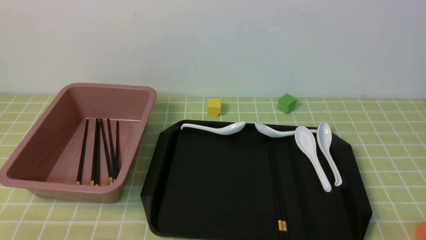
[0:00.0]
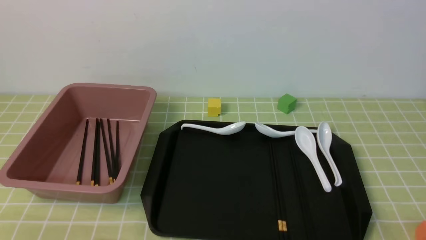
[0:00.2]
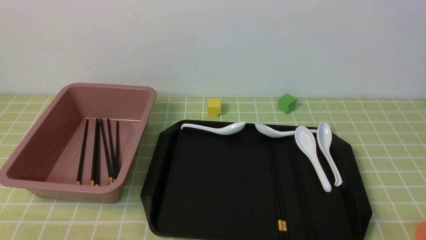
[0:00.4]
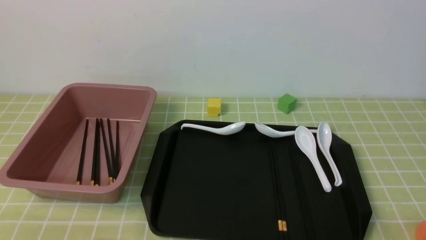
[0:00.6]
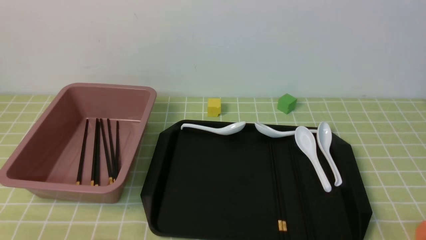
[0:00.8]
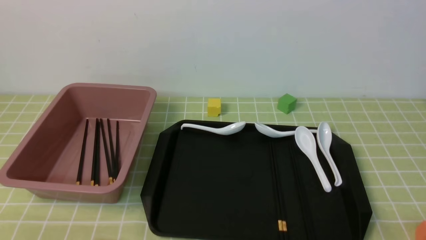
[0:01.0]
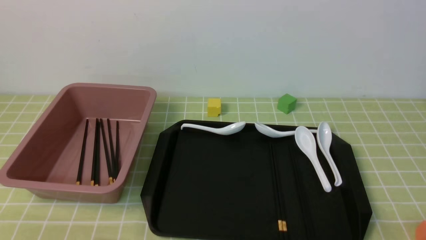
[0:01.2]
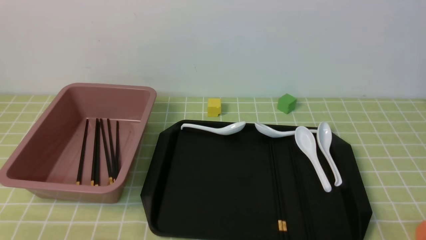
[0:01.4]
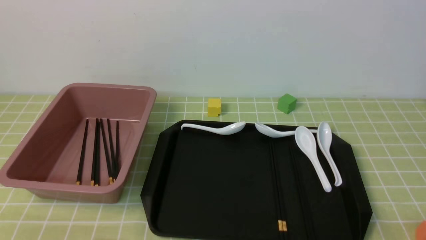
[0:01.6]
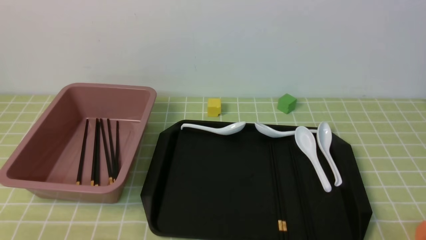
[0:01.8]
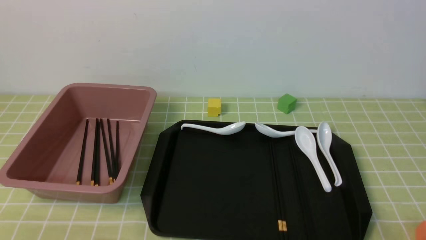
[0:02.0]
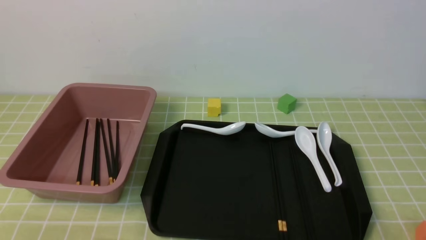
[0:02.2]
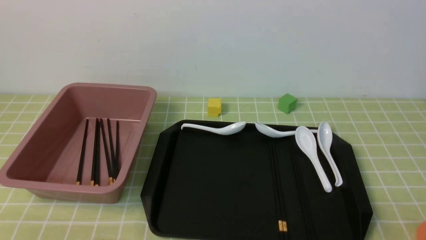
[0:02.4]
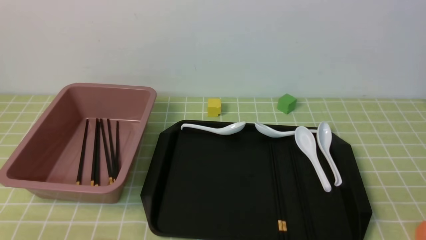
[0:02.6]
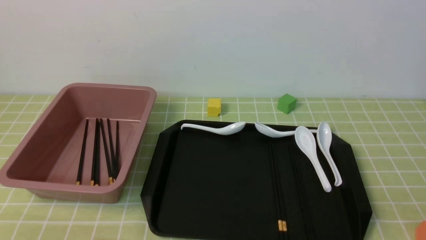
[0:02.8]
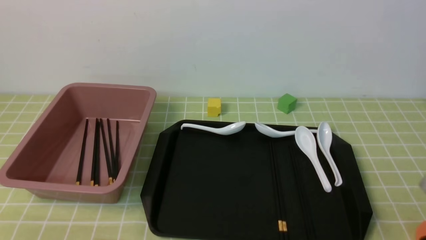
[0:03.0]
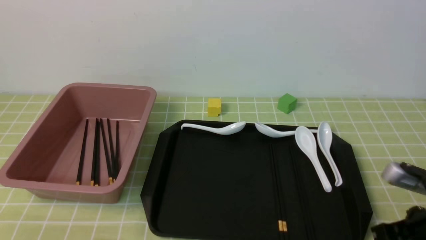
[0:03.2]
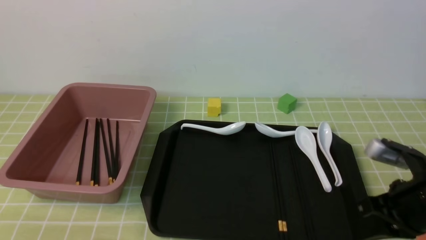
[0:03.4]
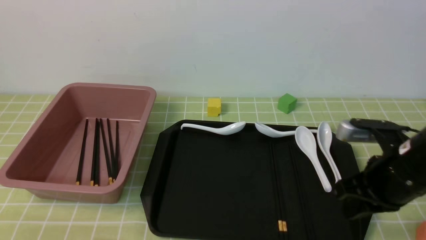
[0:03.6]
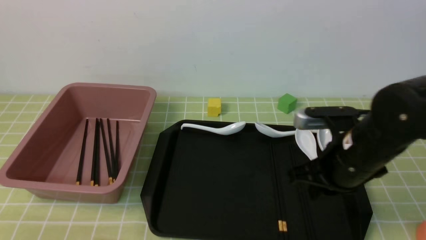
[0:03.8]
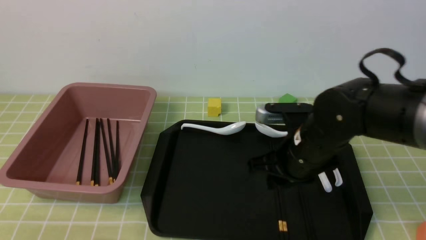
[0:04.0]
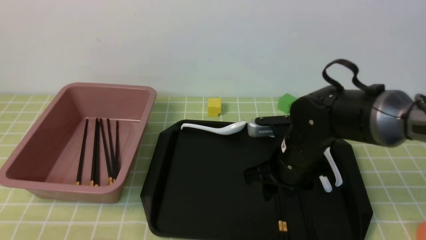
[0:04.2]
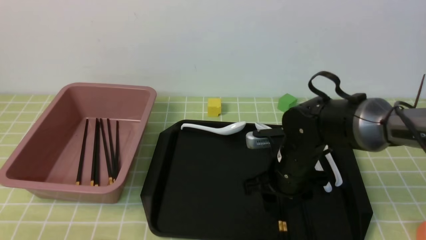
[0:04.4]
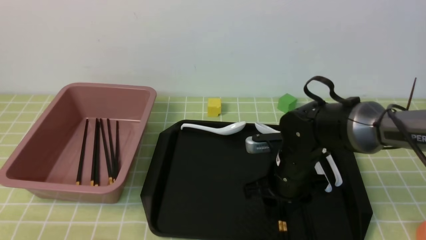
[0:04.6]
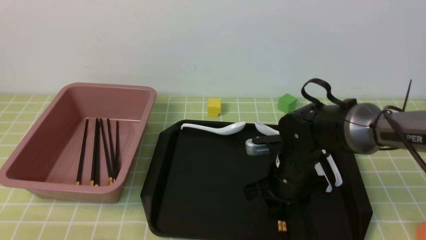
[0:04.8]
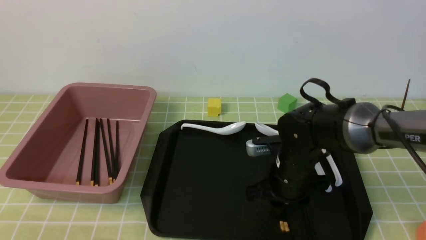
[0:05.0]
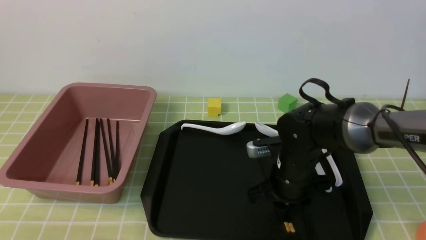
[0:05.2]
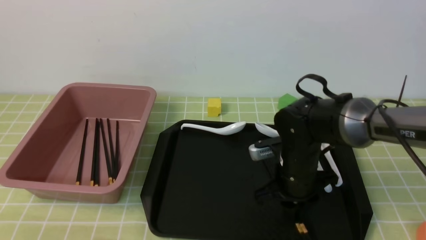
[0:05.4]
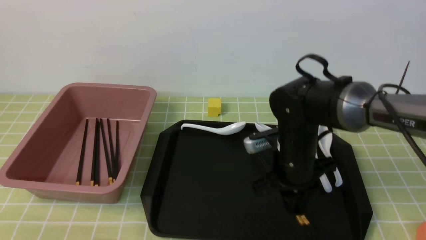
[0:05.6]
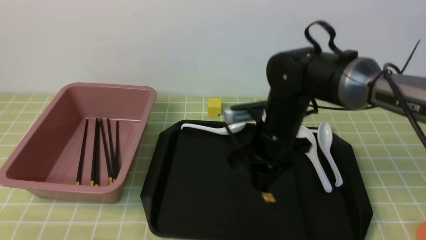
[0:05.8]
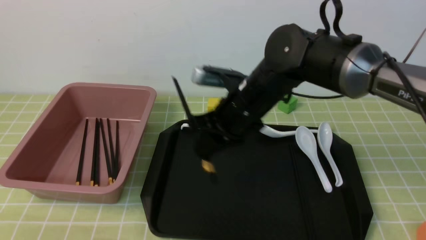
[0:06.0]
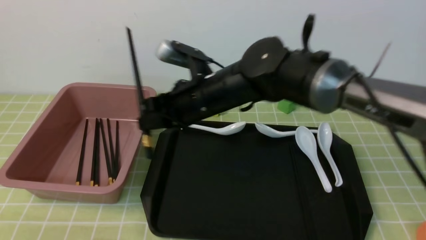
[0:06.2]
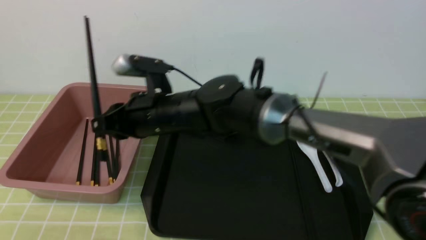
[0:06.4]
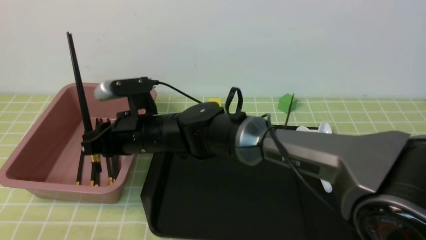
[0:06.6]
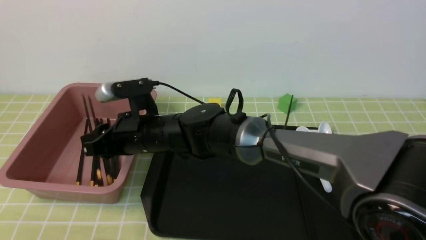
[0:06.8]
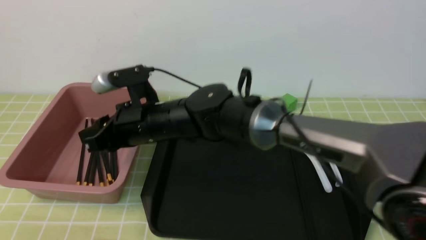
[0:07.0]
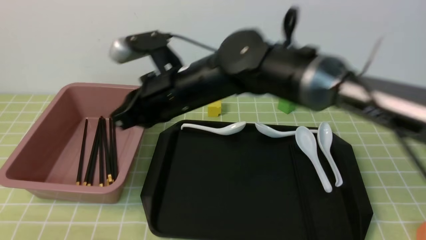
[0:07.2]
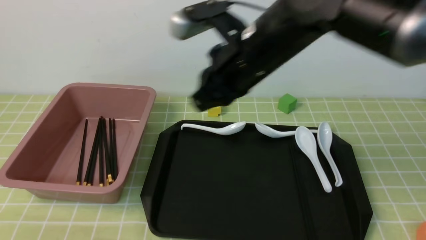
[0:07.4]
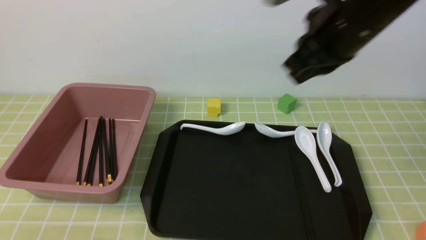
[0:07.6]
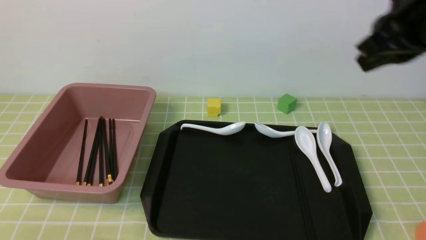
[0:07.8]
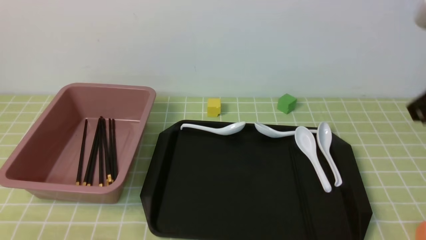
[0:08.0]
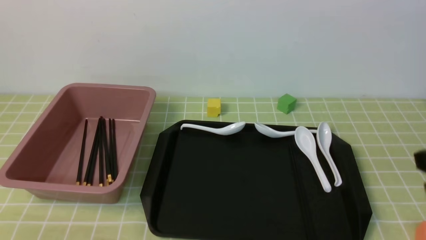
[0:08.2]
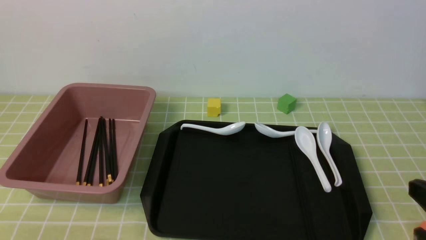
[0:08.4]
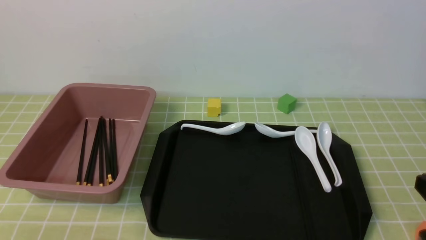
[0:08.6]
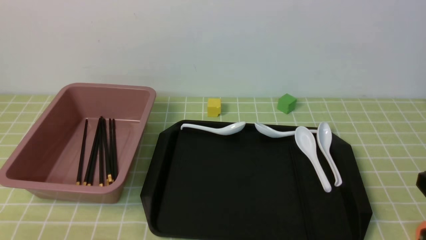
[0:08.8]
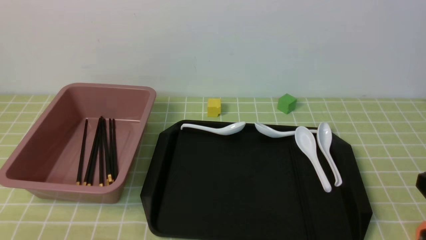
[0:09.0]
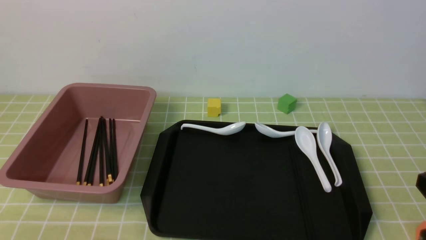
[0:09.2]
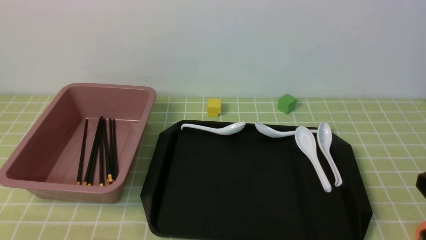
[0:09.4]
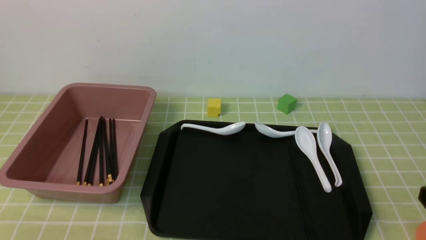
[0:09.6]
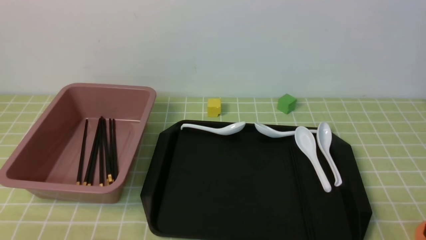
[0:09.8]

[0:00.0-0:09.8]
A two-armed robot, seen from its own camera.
Step, 0:00.0 to 0:05.6: use the right arm to grab a pair of chopsticks.
Step, 0:05.8 to 0:07.0: use the right arm to put the chopsticks into the lunch box.
0:00.0 to 0:01.4: Both grippers stay about where they are.
0:02.8 to 0:04.2: The right gripper moves forward and to the left, some 25 cm, and opens.
0:04.2 to 0:05.6: The right gripper closes its fingers.
0:05.6 to 0:07.0: The right gripper goes roughly 20 cm to the left and upward.
0:07.0 to 0:08.4: The right gripper heads to the right and backward, covering some 40 cm, and closes its fingers.

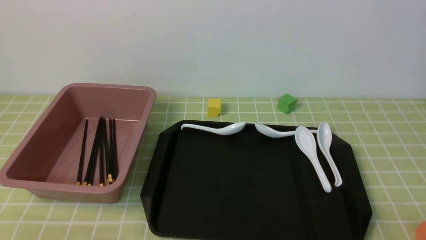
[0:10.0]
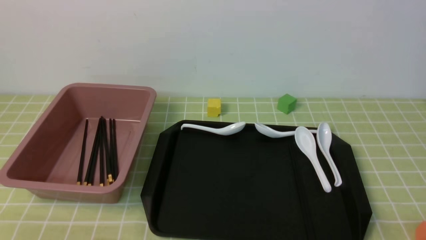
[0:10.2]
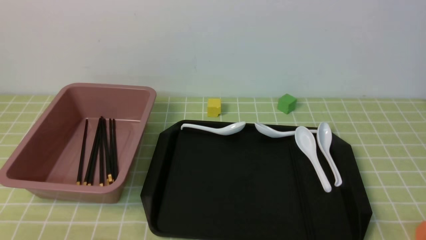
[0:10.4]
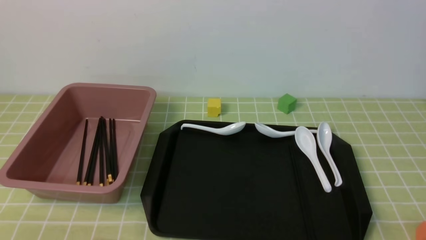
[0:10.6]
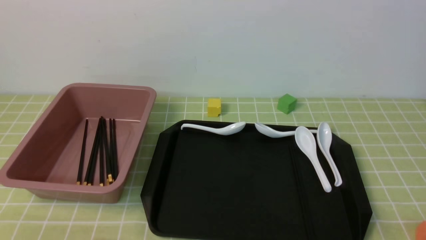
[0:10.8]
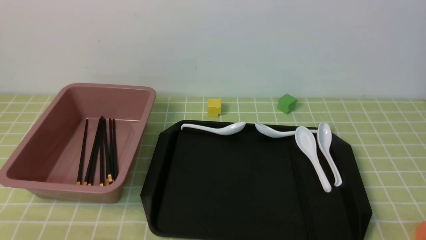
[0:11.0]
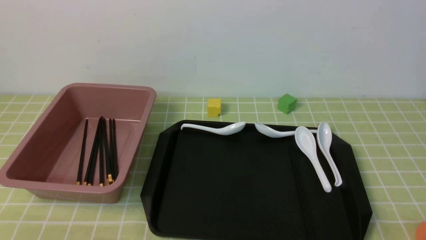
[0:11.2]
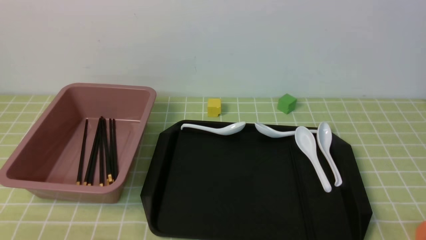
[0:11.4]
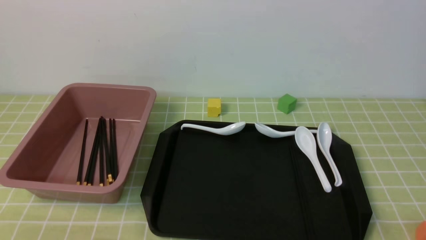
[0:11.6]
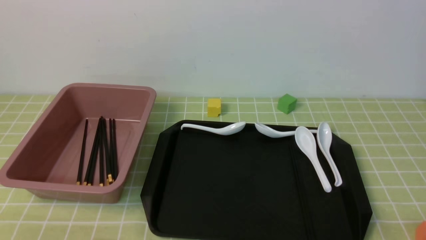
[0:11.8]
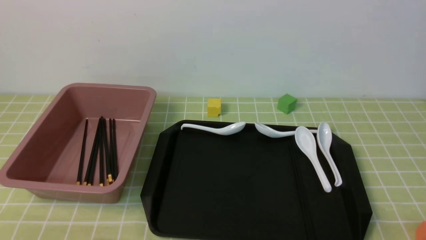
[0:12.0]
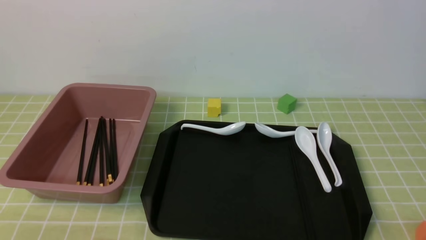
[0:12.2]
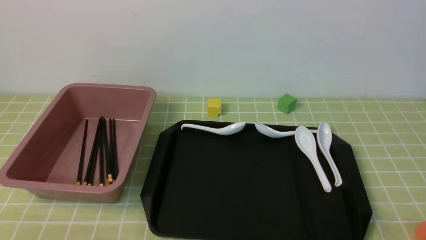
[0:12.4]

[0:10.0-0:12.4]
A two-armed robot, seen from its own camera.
0:10.0 to 0:12.4: Neither gripper changes place.

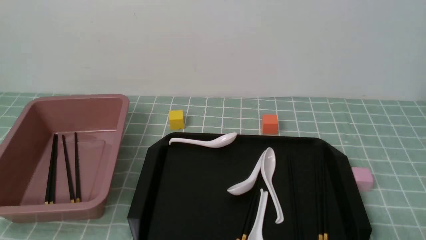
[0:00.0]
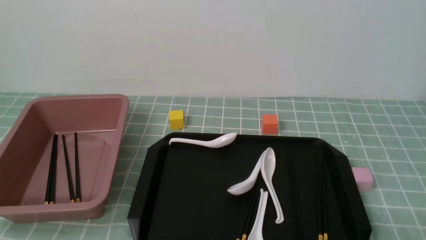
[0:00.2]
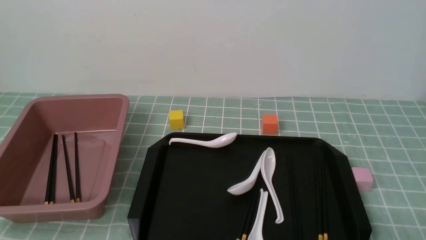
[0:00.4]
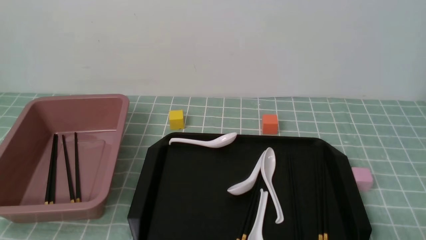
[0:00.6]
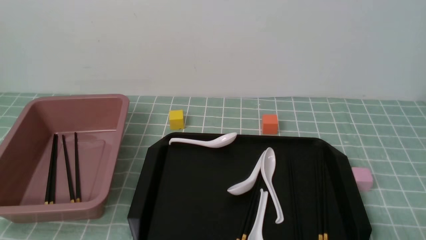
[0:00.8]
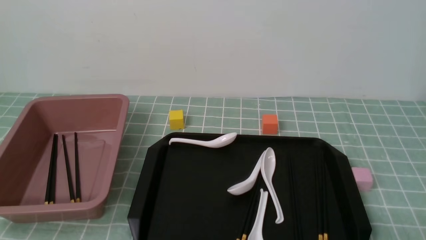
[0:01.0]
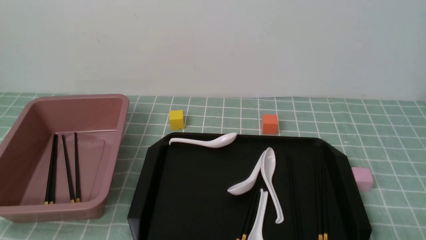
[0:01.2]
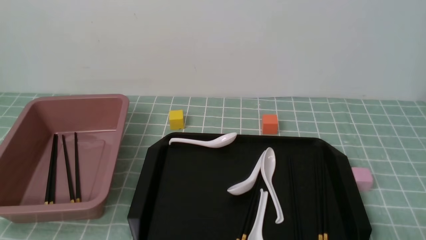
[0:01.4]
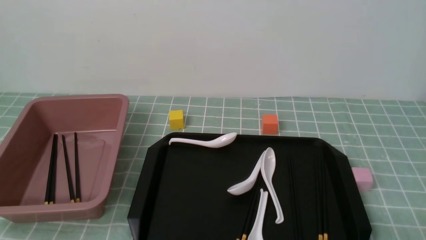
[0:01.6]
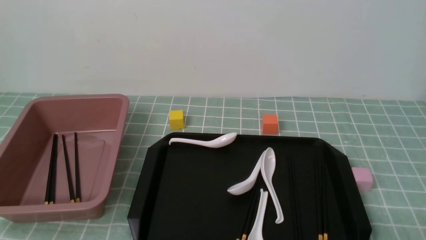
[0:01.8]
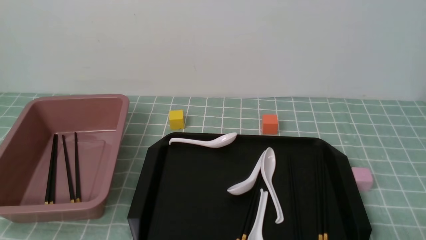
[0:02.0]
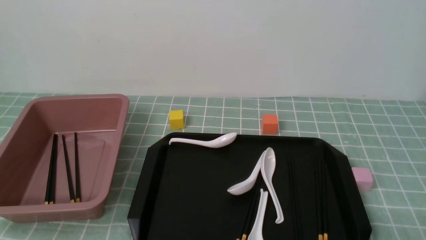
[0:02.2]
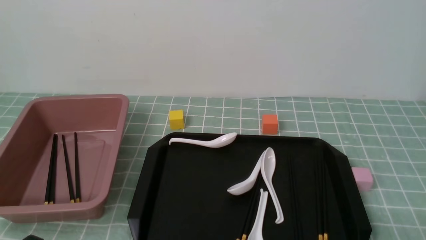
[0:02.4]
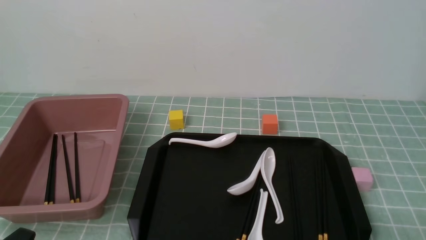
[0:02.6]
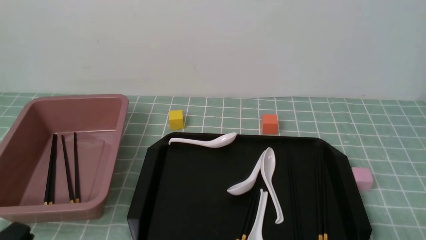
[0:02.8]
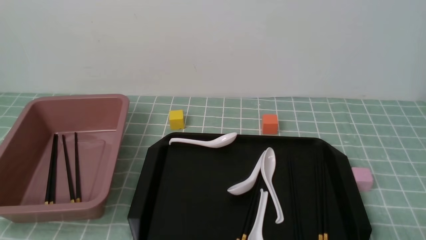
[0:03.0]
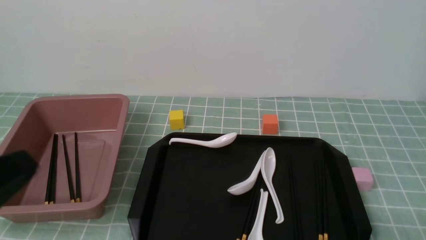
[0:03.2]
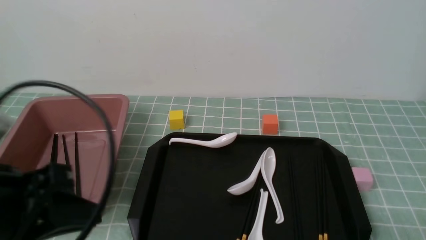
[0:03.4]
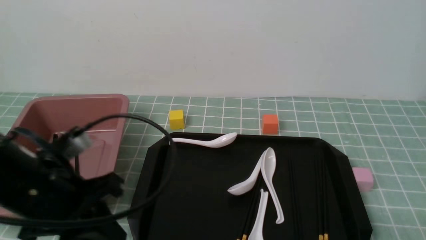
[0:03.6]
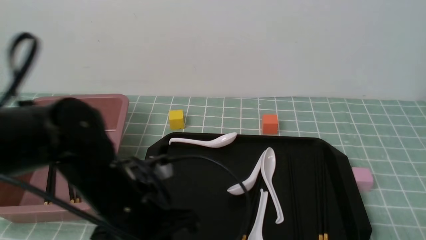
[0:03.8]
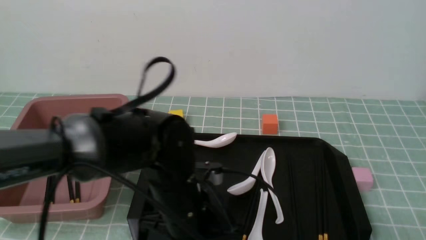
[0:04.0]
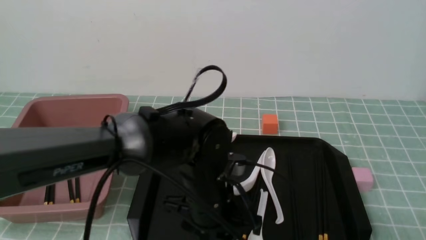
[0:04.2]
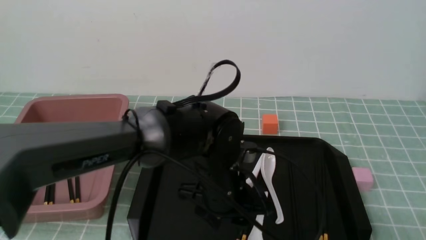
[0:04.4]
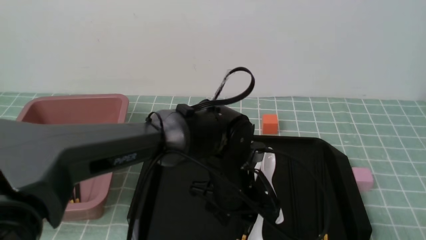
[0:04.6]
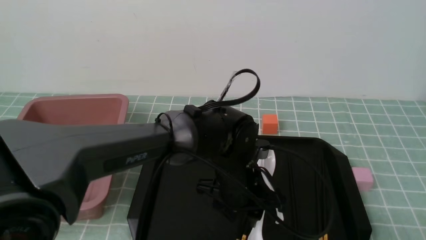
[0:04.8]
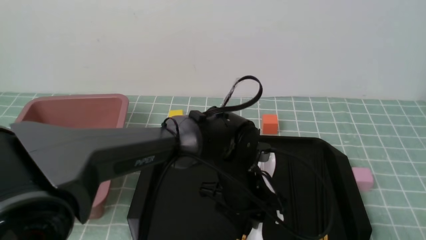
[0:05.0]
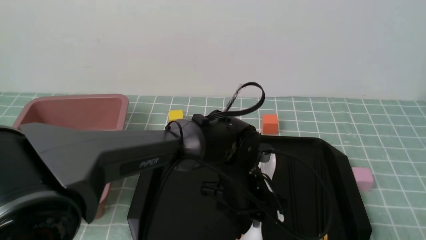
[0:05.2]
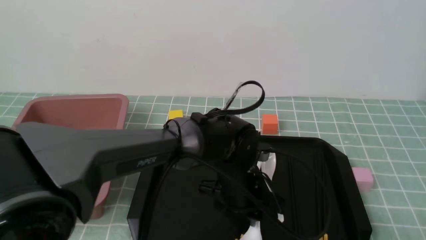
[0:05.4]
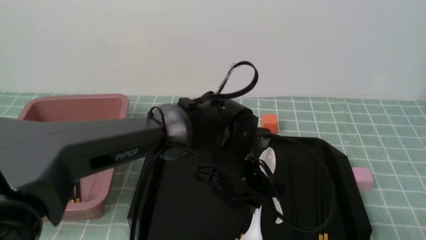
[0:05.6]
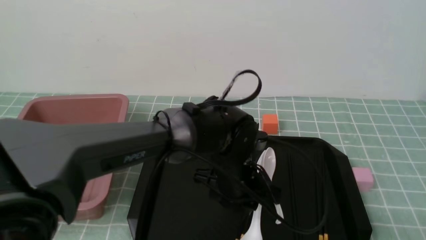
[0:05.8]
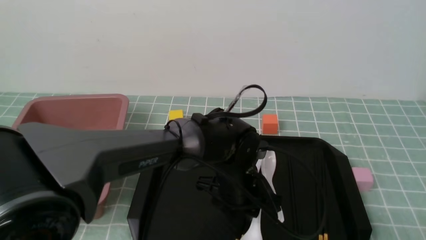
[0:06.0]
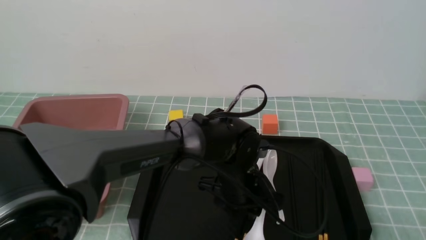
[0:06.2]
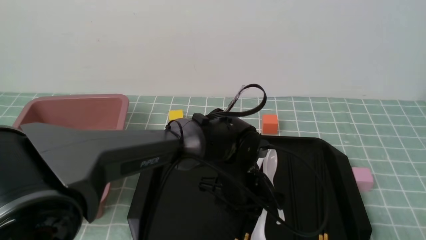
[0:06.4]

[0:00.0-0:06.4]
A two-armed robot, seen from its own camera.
0:01.6 to 0:03.2: The left gripper shifts approximately 10 cm upward.
0:03.2 to 0:04.8: The left gripper goes some 35 cm to the right and forward, and opens up.
0:04.8 to 0:06.4: The grippers make only small movements.
